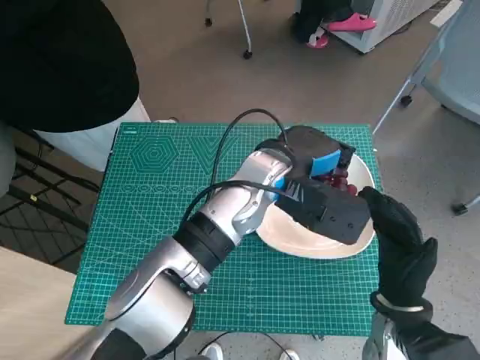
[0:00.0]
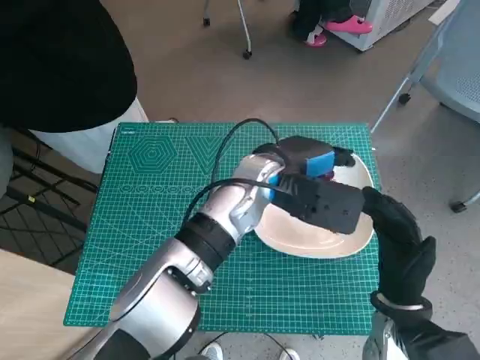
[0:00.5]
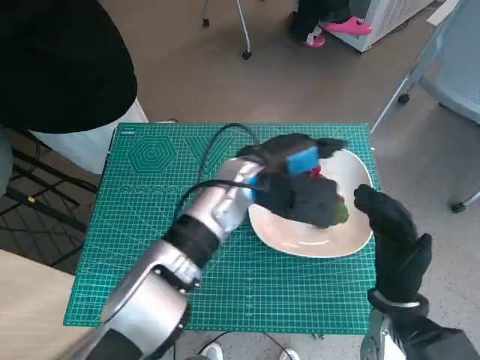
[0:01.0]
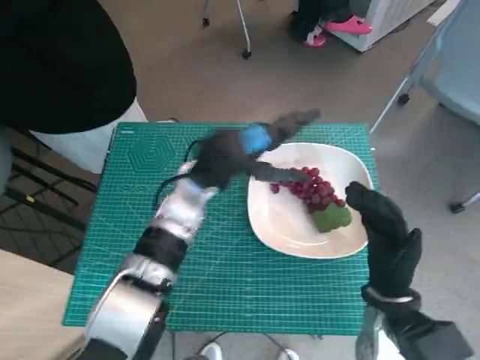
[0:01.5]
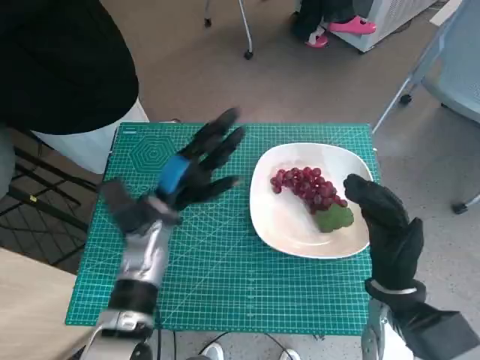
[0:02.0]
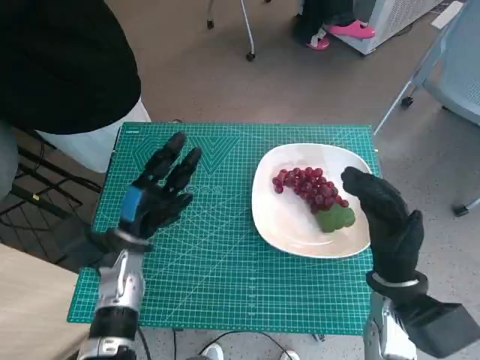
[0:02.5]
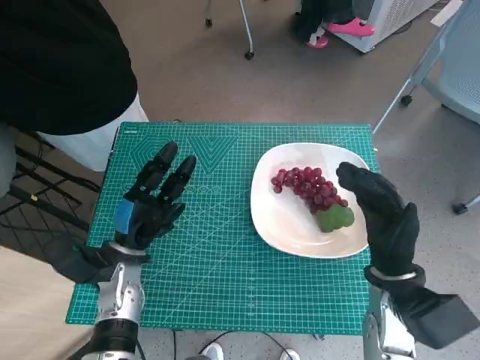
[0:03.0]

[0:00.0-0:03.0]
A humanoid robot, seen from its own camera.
Task of the whole recording: Pick up the grapes and put them on the plate.
0:00.0 to 0:01.5: The left hand is displaced to the left by approximately 10 cm.
0:01.5 to 0:03.0: The left hand heads to the left, downward and backward, covering some 20 cm.

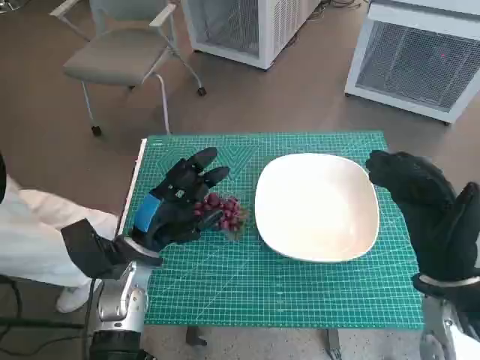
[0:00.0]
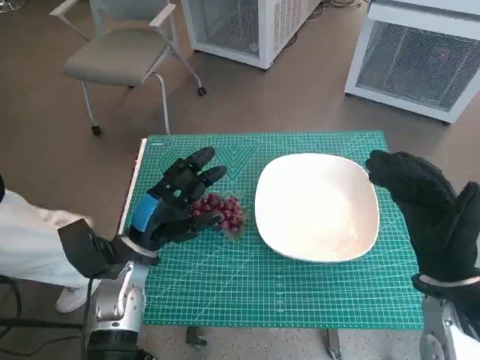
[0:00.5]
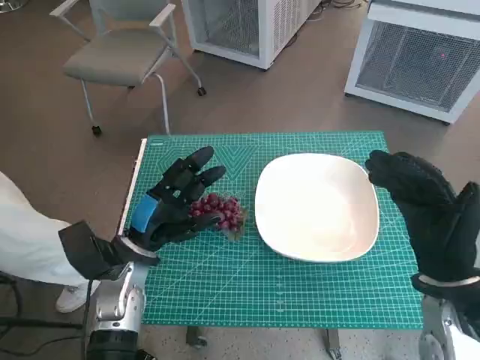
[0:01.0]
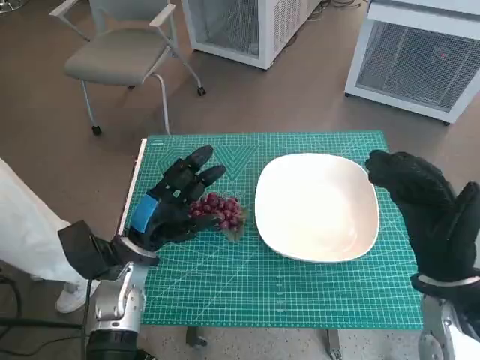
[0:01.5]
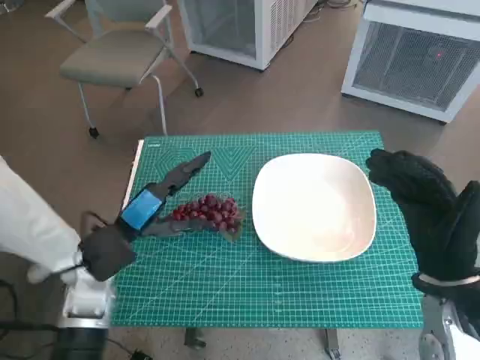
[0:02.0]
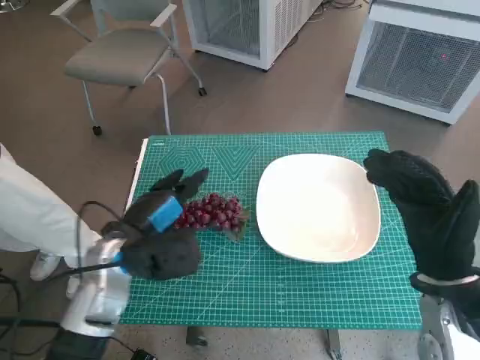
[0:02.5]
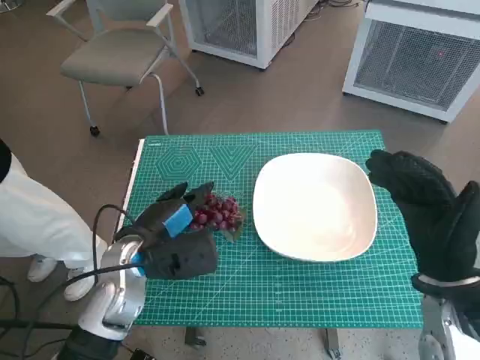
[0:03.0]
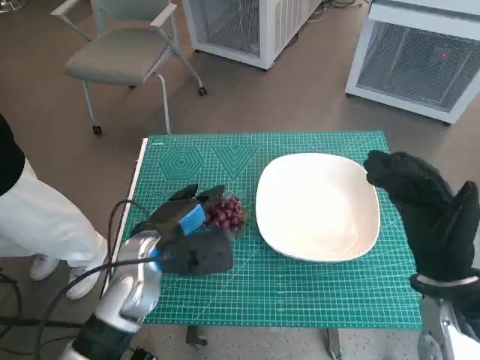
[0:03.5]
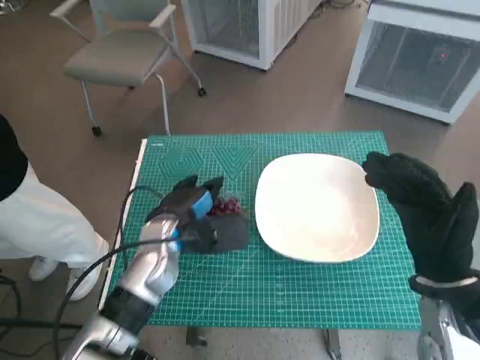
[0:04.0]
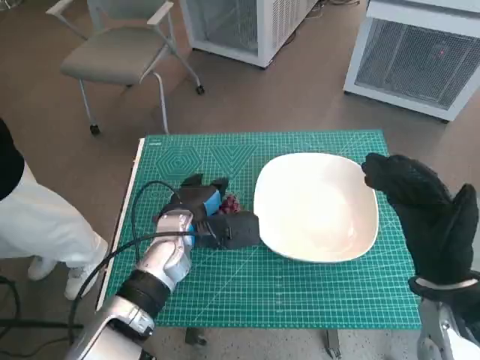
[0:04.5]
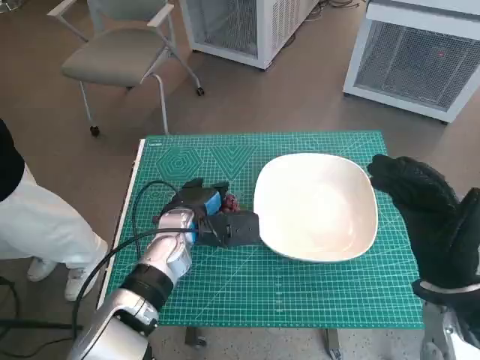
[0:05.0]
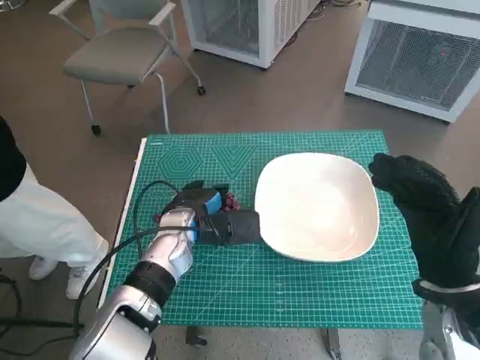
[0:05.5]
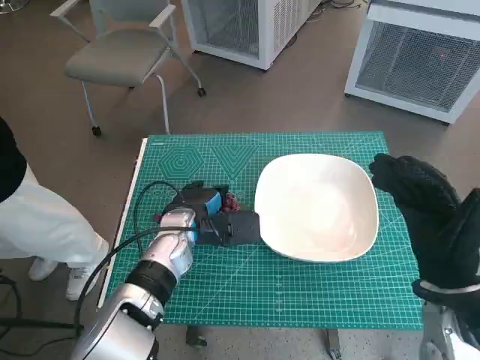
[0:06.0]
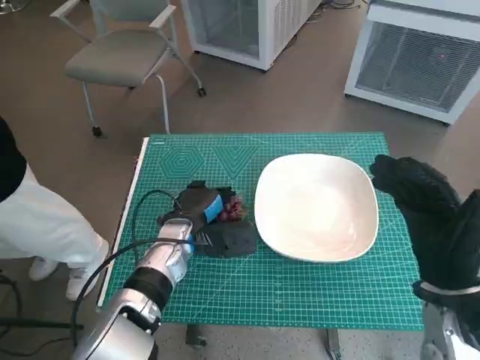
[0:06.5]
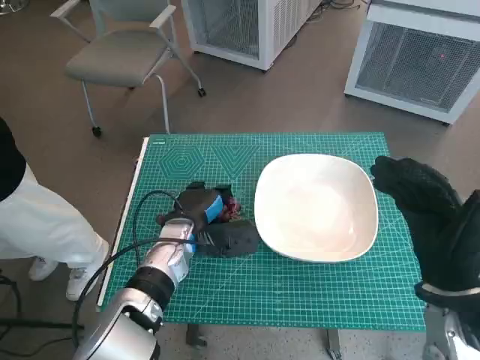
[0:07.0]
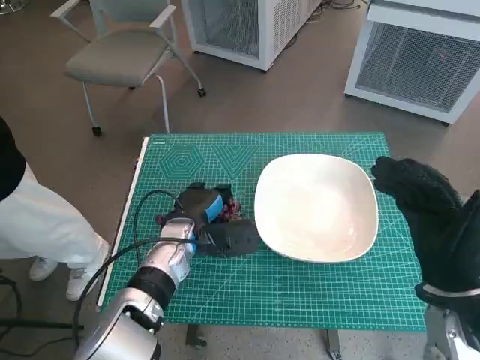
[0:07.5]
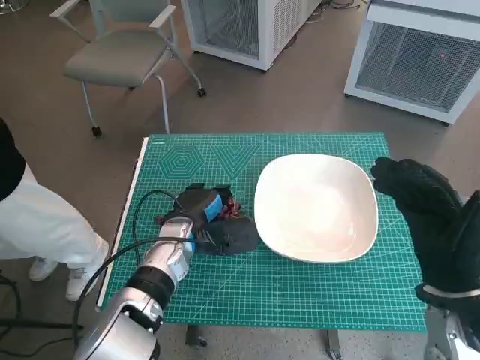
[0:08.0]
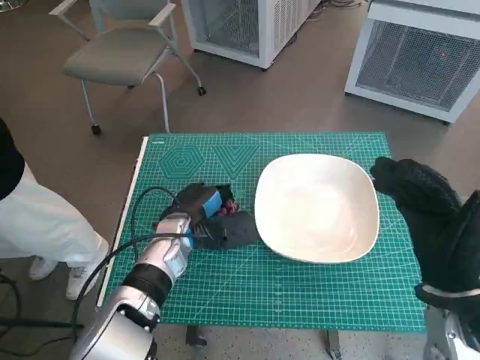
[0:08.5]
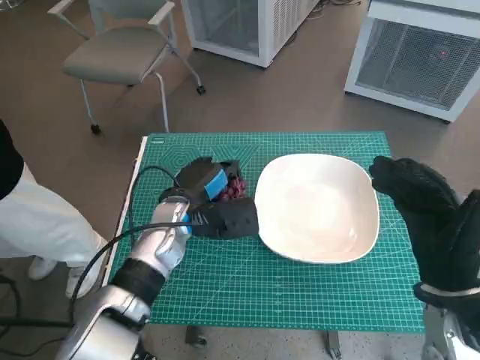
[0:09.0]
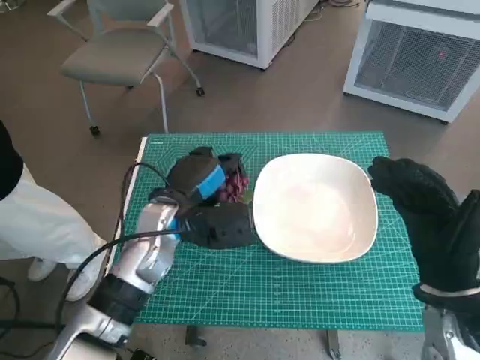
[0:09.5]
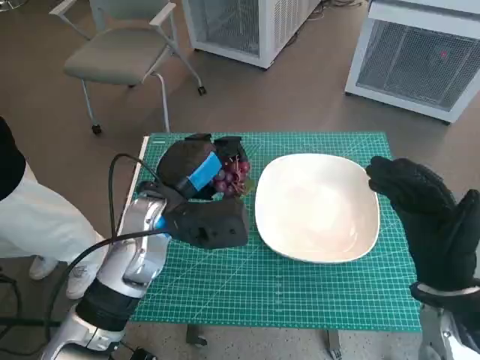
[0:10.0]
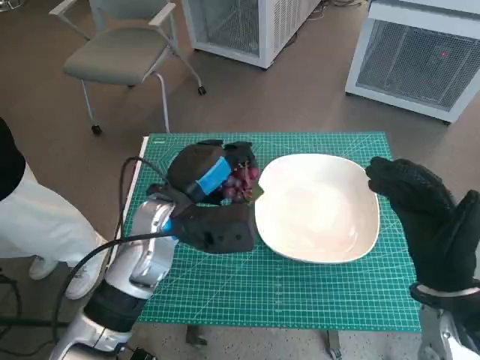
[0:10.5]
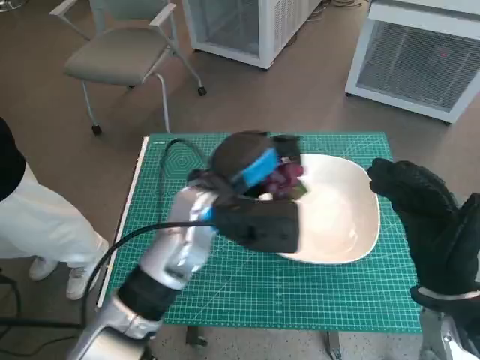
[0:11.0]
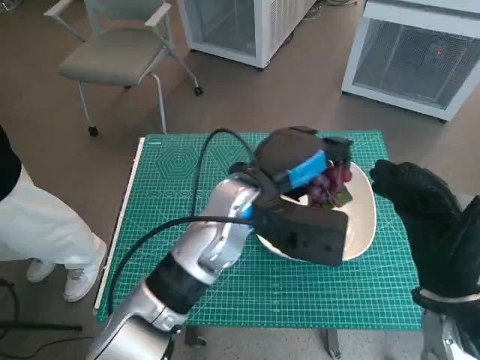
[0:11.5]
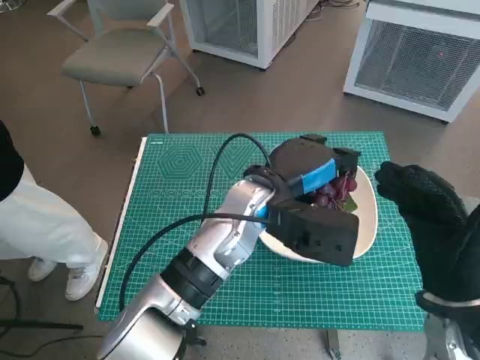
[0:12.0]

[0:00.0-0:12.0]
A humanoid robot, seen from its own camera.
Task of the whole recording: Pick up the grapes and put them on the plate.
Step, 0:00.0 to 0:06.5: Grasp the grapes with left hand.
0:02.0 to 0:04.0: The left hand goes some 5 cm to the right.
0:04.0 to 0:08.0: The hands stay close to where they were, moving slightly.
0:08.0 to 0:10.0: The left hand shifts some 10 cm upward.
0:10.0 to 0:12.0: The left hand is displaced to the right by approximately 10 cm.

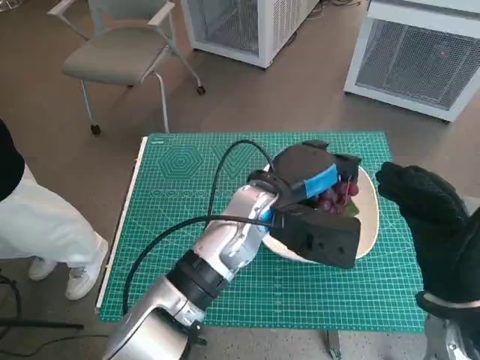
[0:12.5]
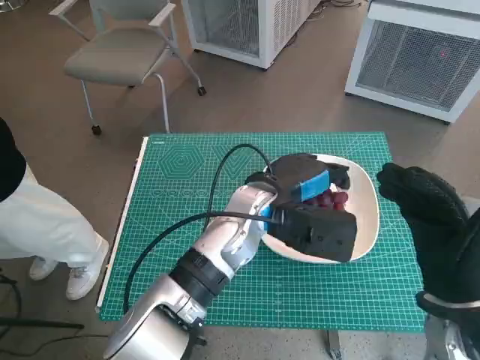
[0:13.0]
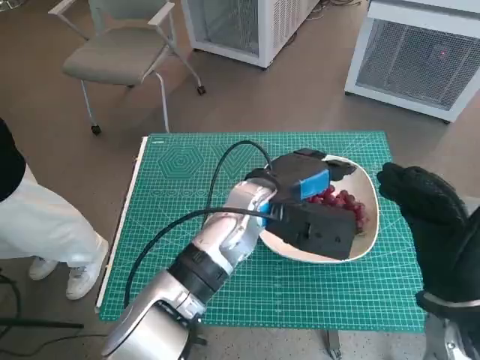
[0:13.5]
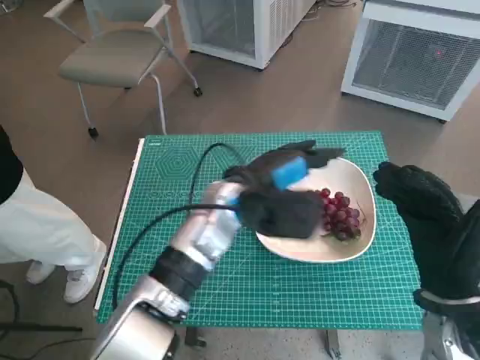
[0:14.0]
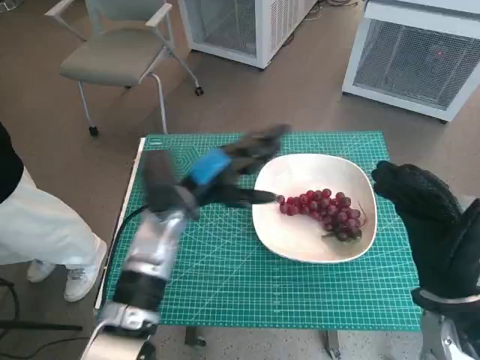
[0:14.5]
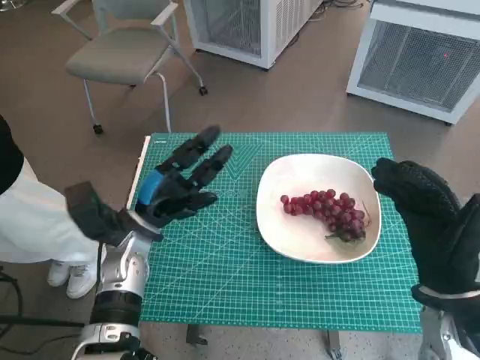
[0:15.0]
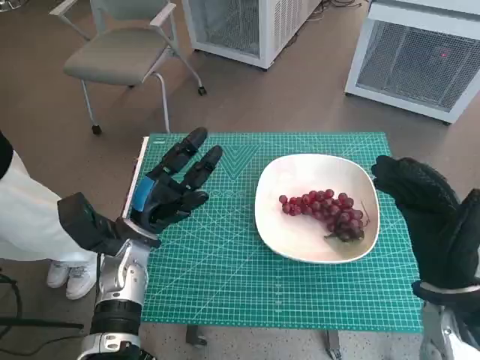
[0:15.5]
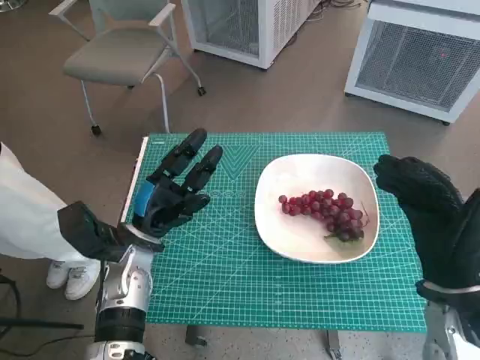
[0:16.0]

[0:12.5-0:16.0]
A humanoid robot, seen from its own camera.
Task of the whole recording: Pick up the grapes and put them on the plate.
0:12.5 to 0:14.5: The left hand heads to the left, covering approximately 10 cm.
0:14.5 to 0:16.0: The left hand shifts some 10 cm to the left and downward.
